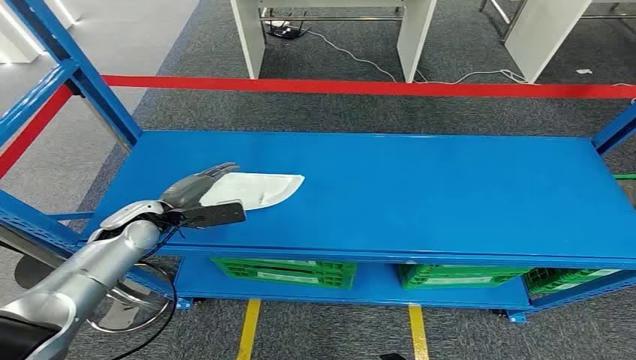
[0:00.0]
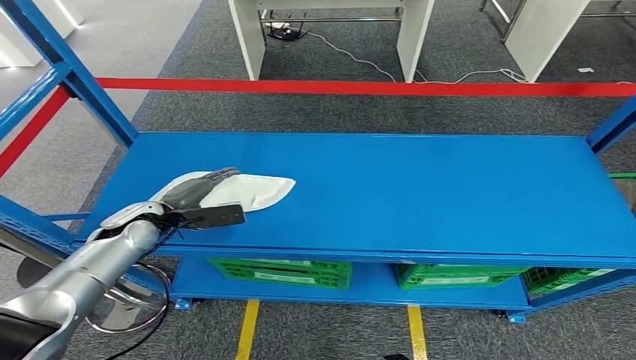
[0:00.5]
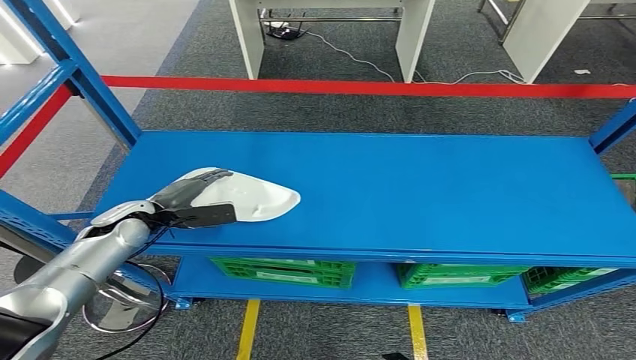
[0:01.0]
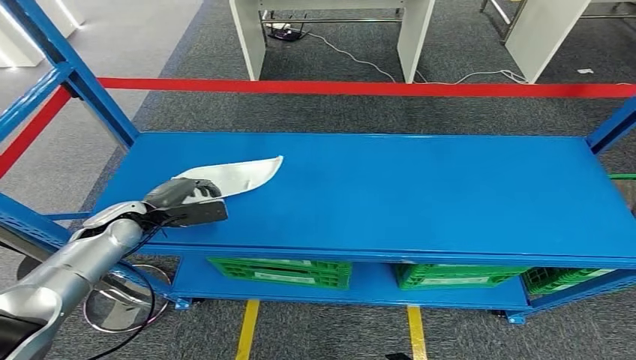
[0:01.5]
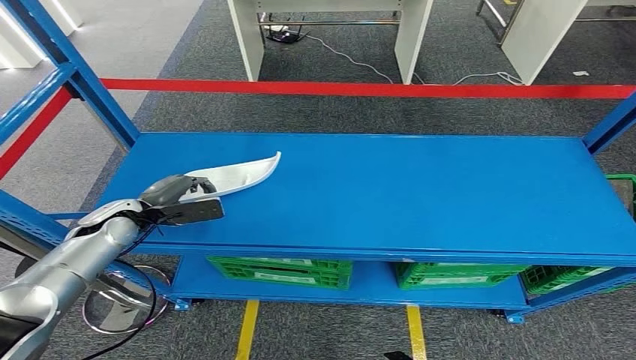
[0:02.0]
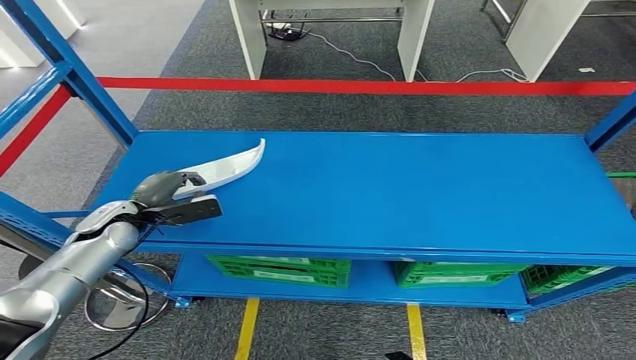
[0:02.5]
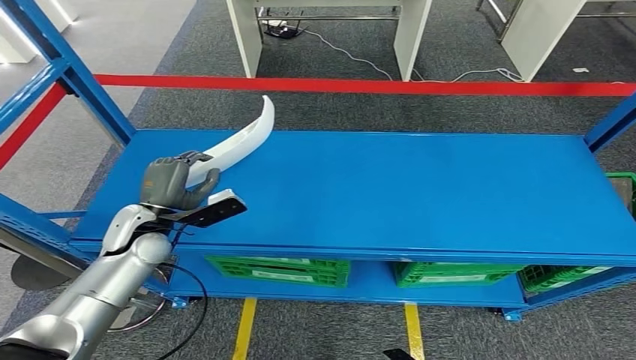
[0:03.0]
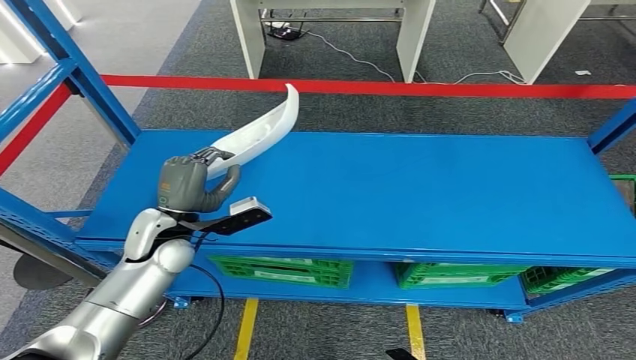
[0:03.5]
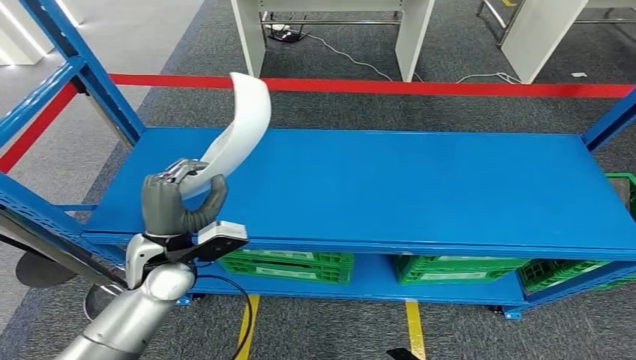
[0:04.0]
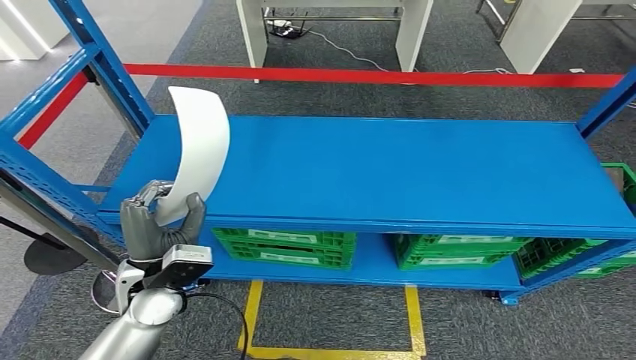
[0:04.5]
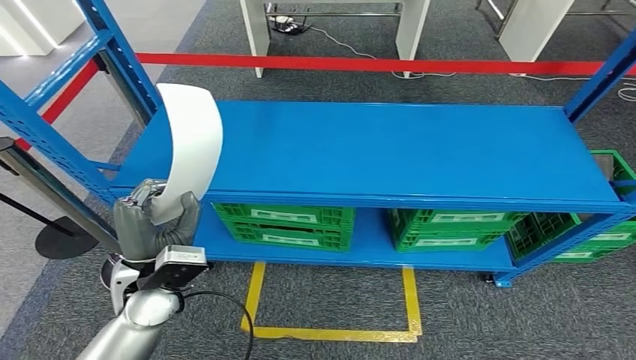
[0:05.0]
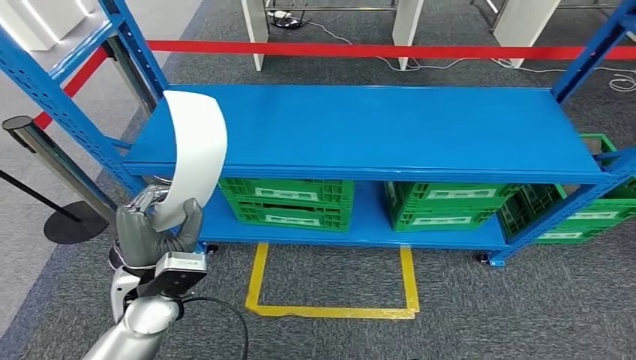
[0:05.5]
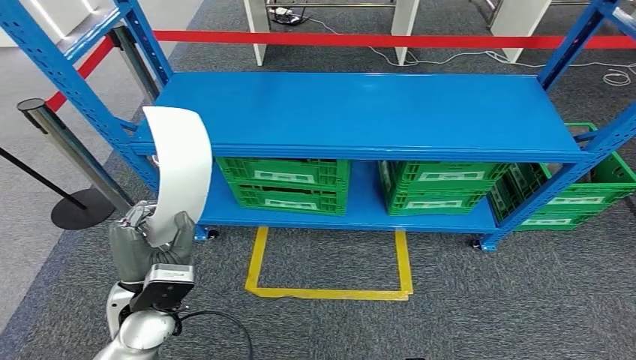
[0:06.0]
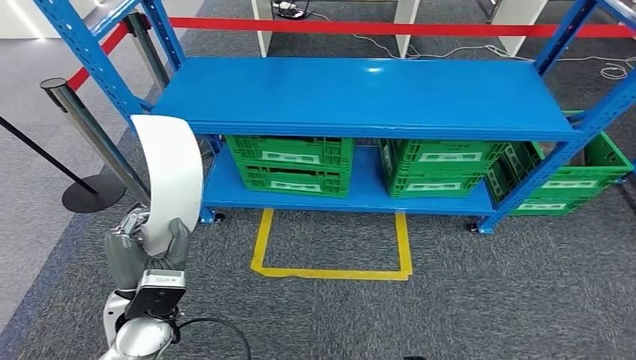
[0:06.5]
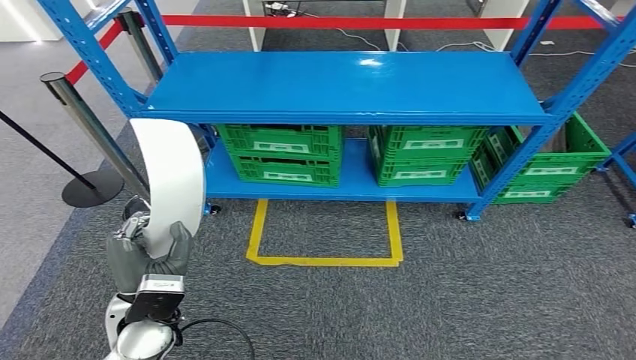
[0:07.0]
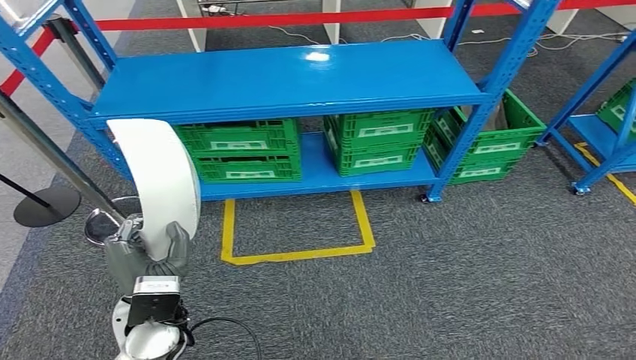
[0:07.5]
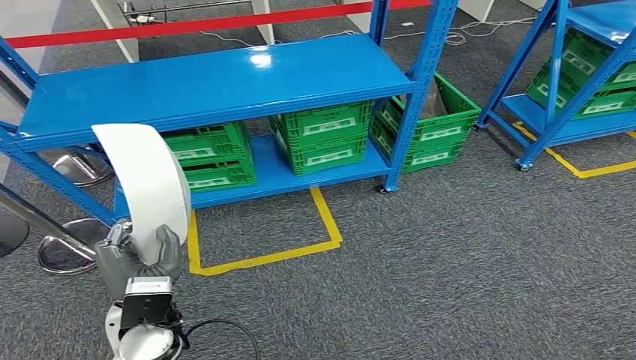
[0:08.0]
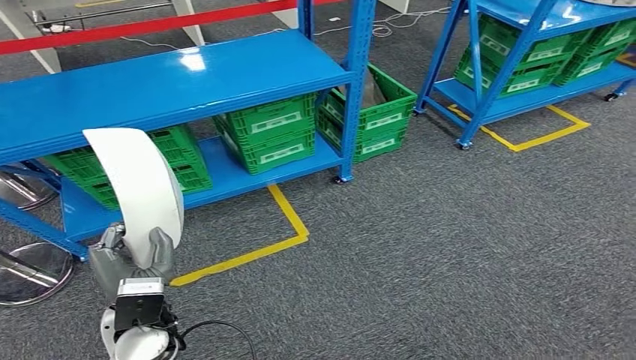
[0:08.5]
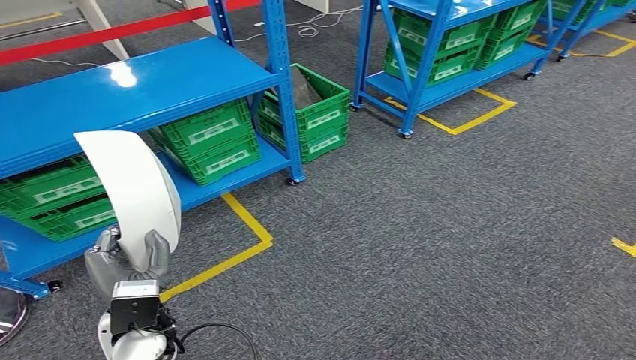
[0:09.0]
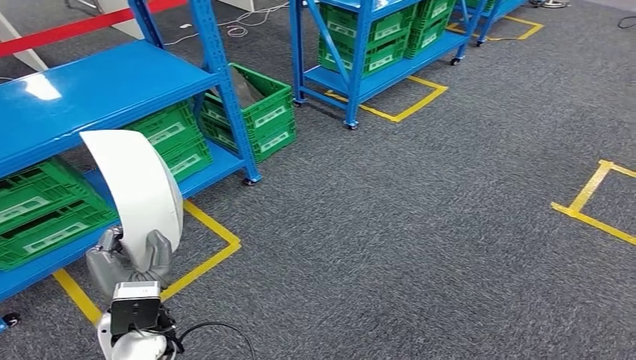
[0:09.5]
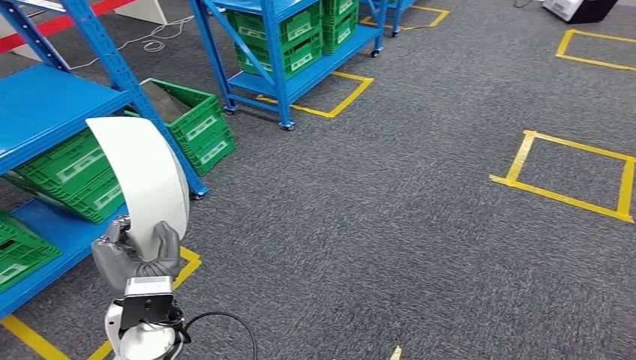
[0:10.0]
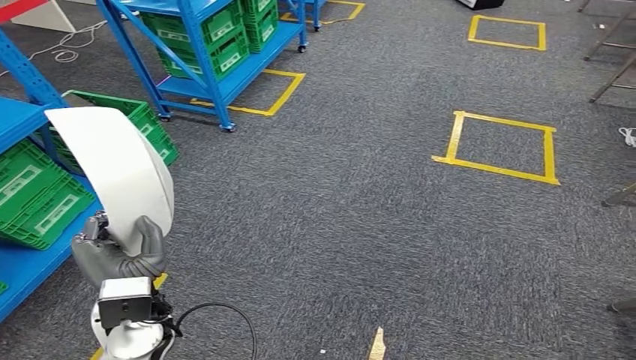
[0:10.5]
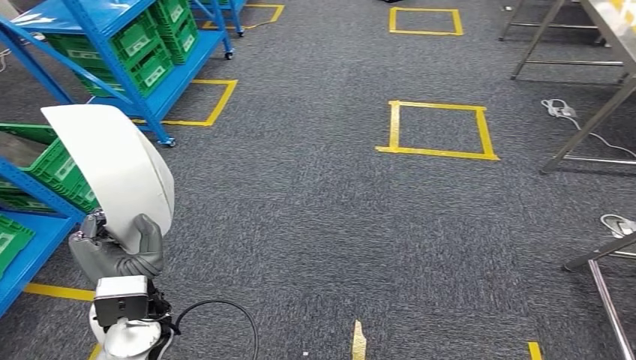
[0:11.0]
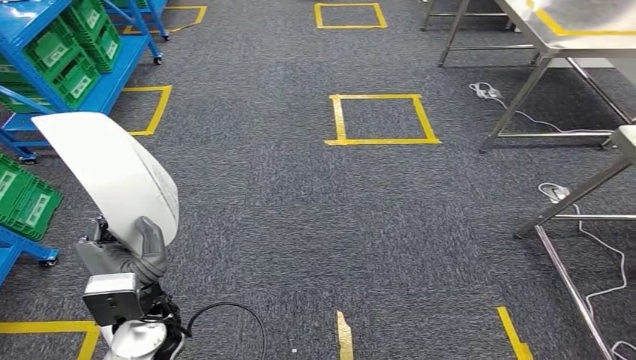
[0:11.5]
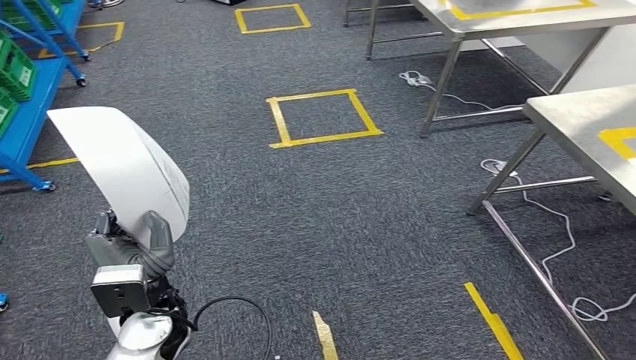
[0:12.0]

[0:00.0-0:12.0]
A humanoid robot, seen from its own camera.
Step, 0:00.0 to 0:04.0: Pick up the small component from the shelf.

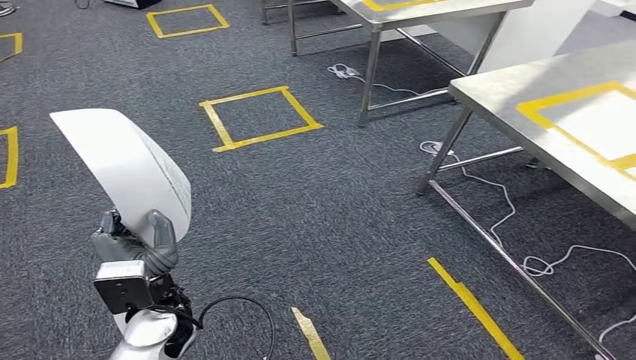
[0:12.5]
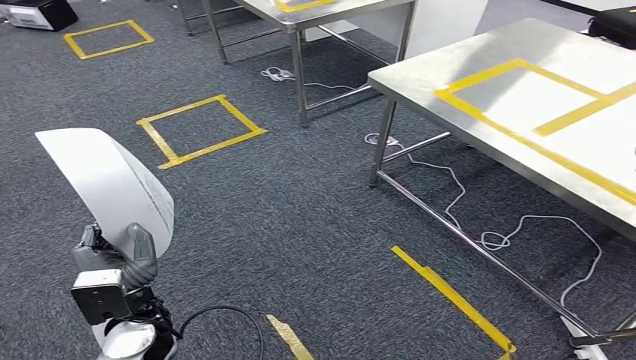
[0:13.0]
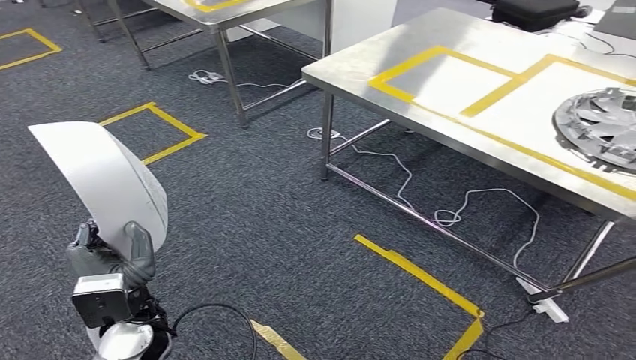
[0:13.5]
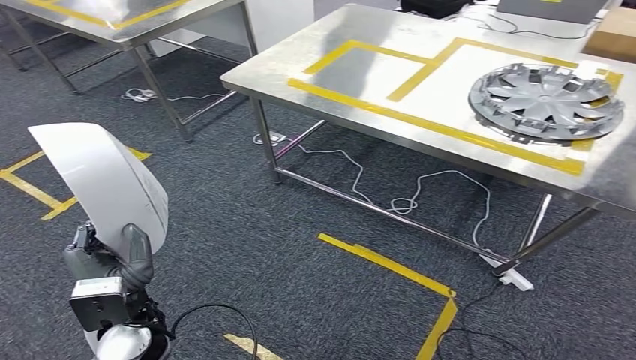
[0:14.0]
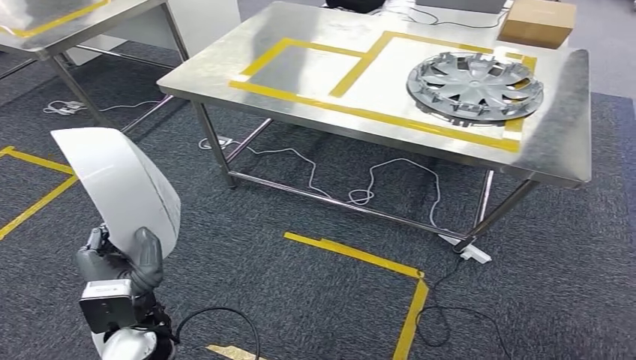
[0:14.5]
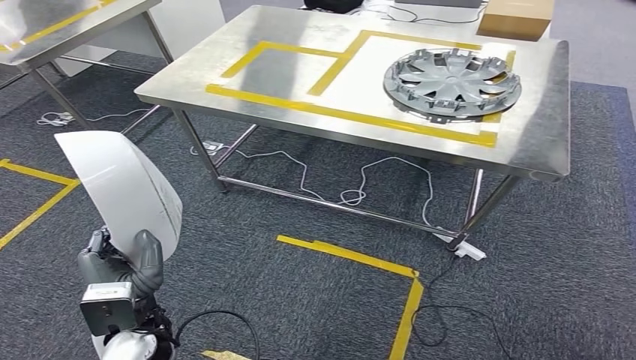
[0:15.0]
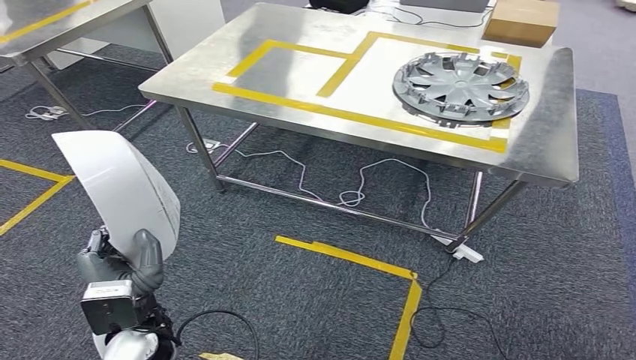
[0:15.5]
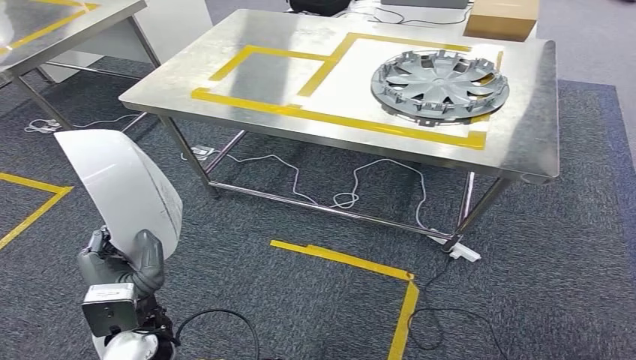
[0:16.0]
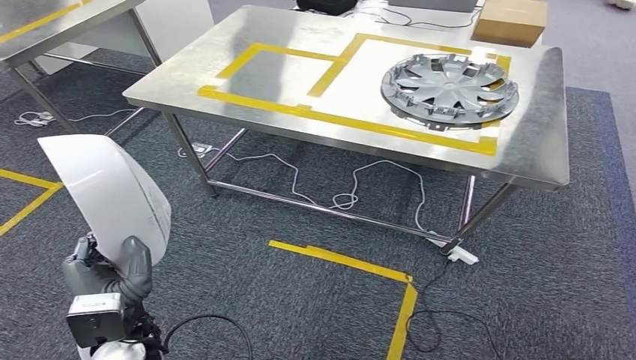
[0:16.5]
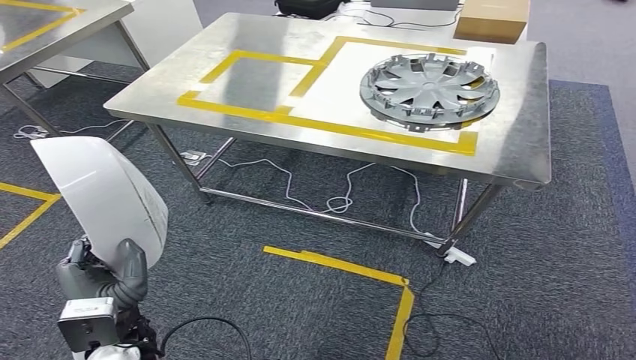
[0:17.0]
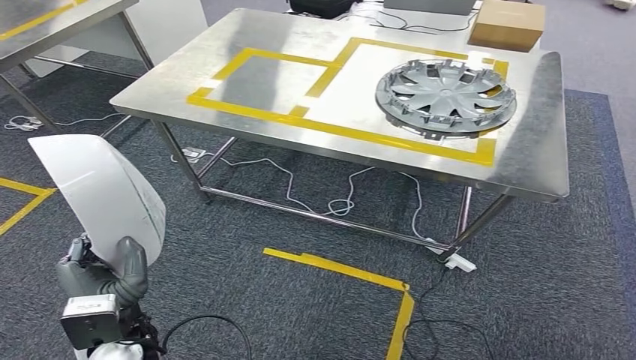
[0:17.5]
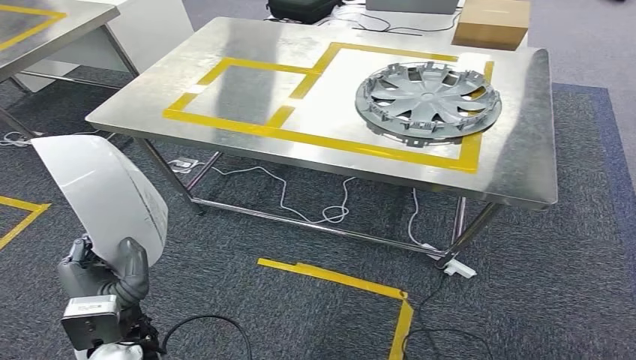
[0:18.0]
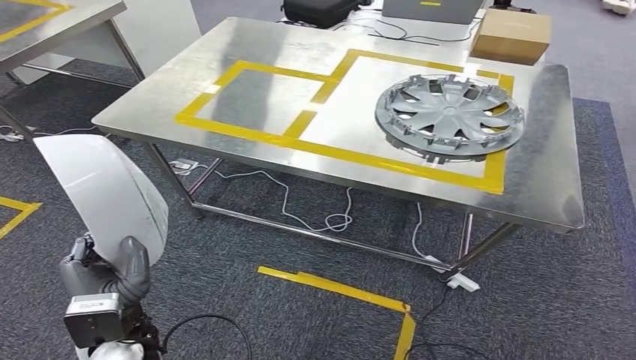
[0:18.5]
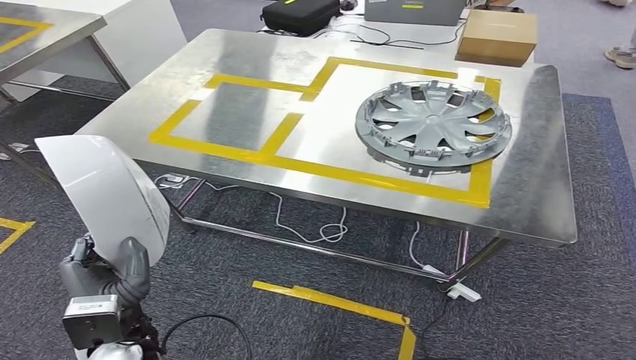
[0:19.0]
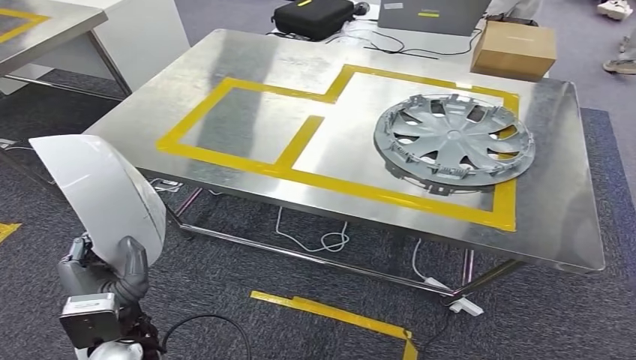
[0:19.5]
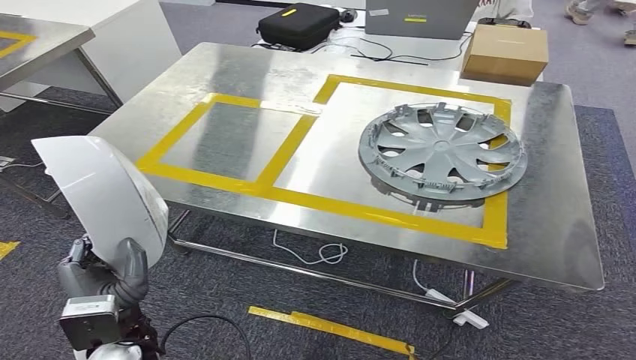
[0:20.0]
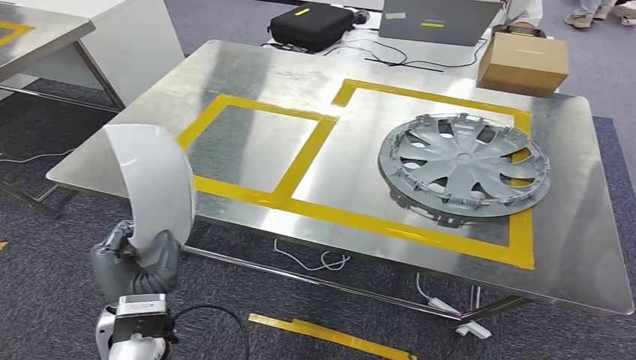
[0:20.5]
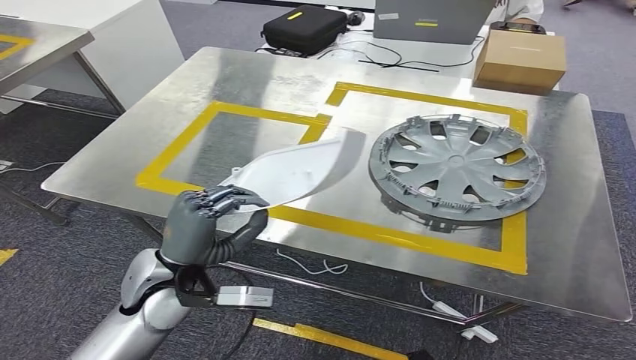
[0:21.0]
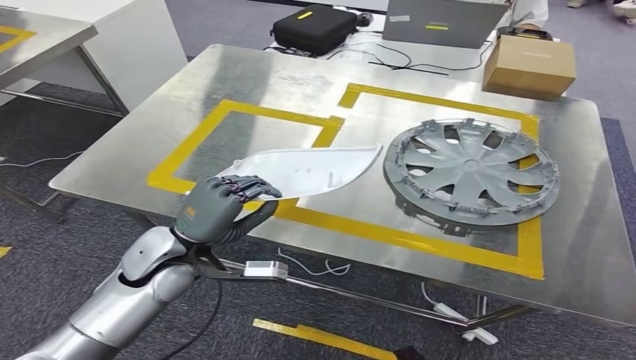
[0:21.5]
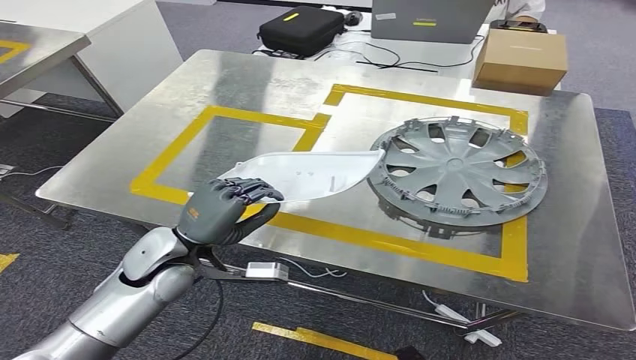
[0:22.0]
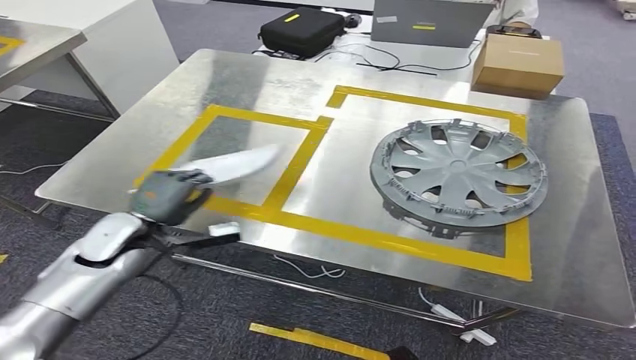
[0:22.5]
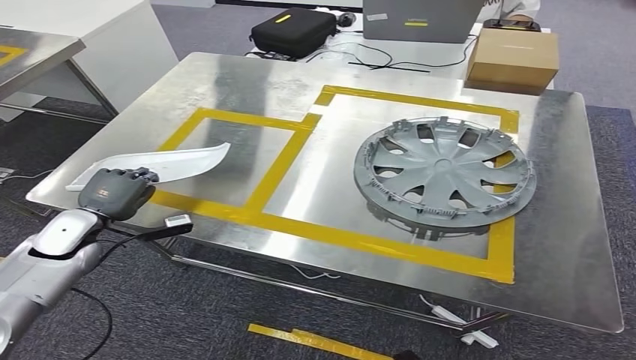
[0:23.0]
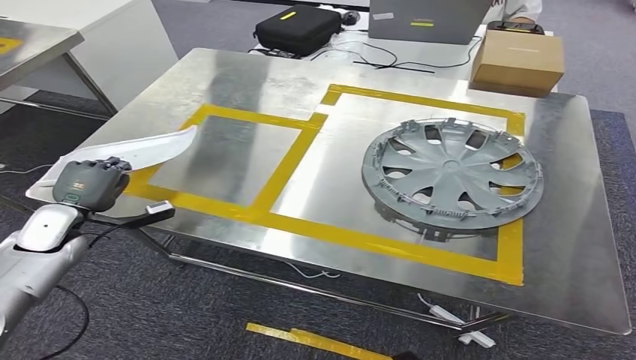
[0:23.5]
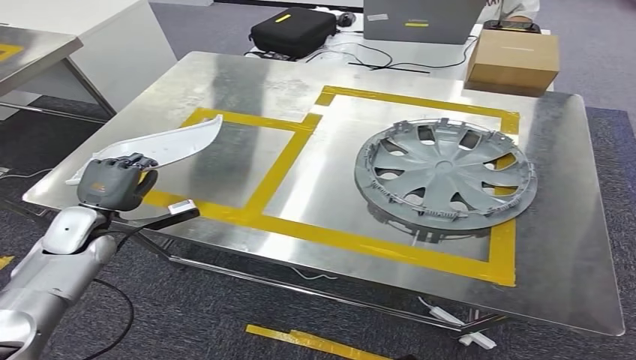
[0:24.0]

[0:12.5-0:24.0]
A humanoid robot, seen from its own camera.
Step, 0:12.5 to 0:18.5: Move the small component to the workbench.
